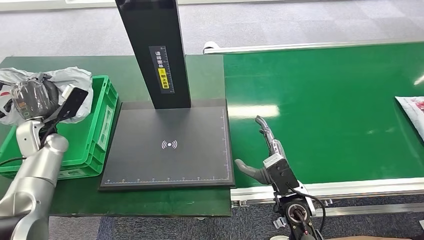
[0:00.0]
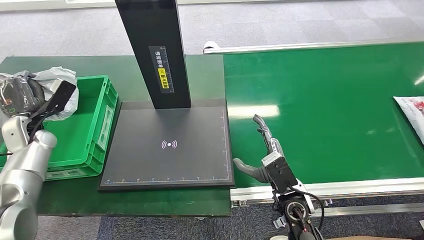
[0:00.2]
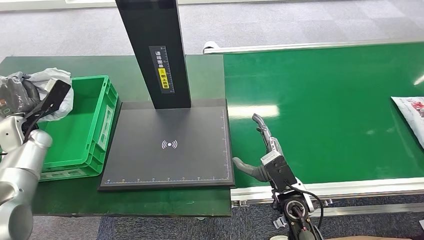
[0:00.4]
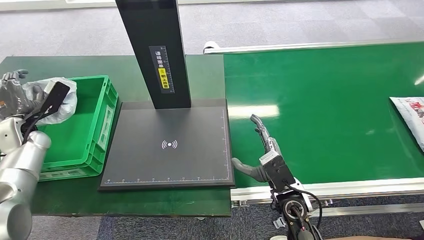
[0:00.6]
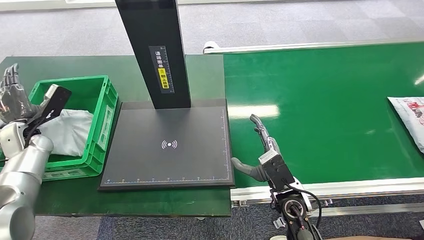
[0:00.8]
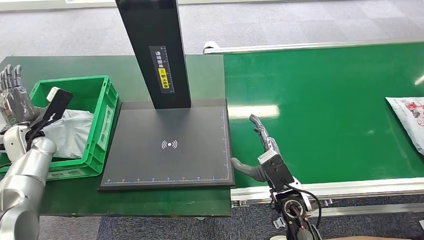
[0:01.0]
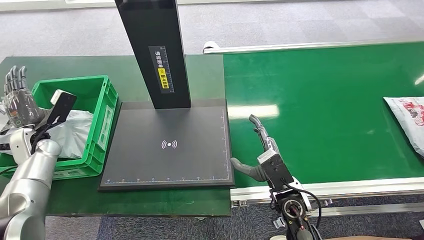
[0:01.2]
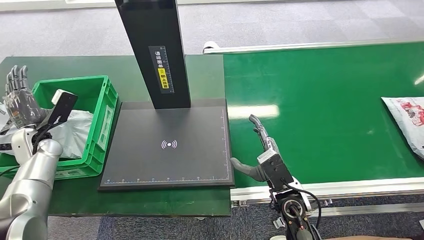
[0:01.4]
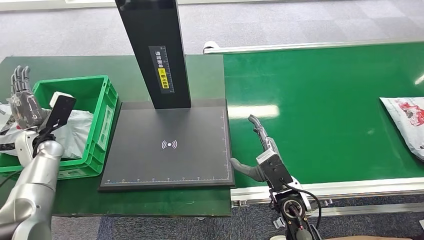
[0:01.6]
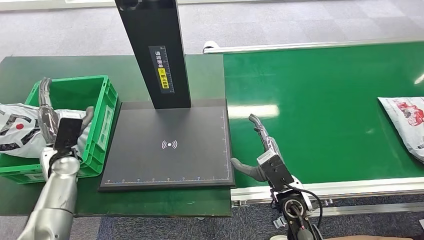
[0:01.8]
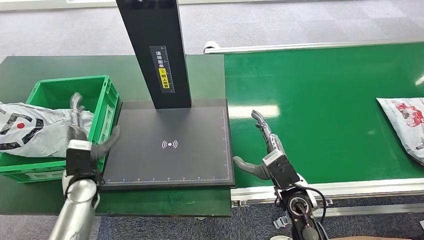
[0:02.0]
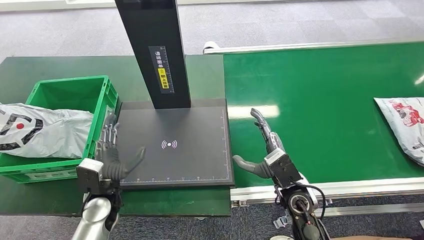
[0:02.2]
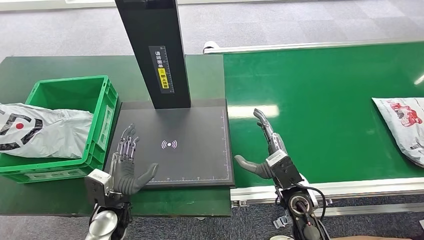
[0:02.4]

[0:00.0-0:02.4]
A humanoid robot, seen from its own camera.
Step, 0:00.0 to 0:02.4: Place the package into the parcel locker.
0:00.0 to 0:01.2: The hands move only a little.
0:01.2 to 0:02.4: The left hand goes approximately 30 cm to the right and backward.
